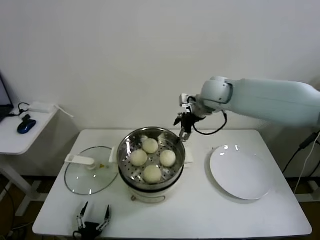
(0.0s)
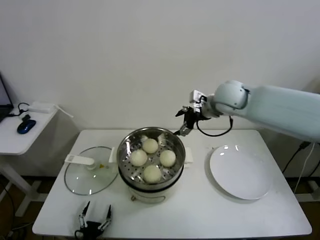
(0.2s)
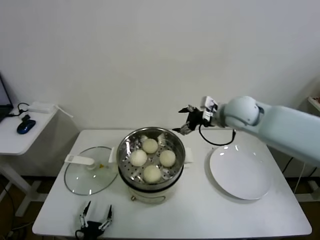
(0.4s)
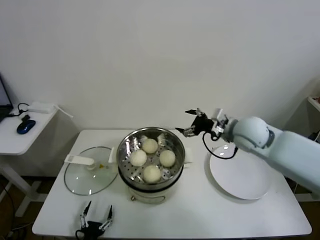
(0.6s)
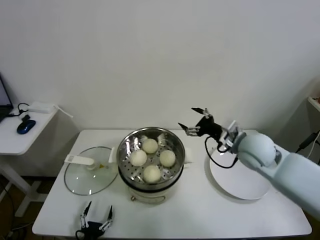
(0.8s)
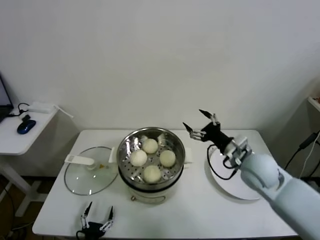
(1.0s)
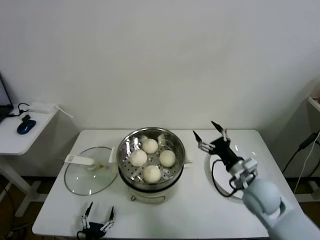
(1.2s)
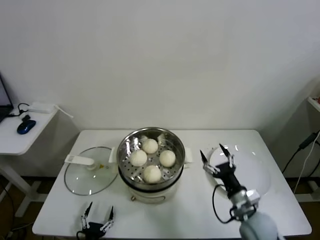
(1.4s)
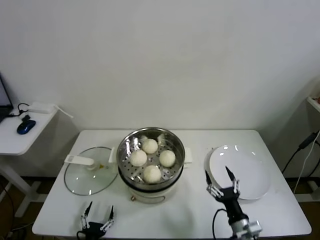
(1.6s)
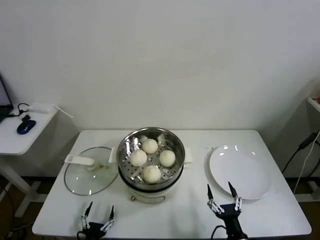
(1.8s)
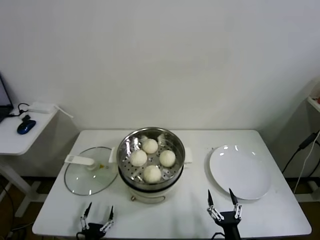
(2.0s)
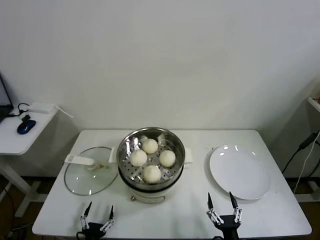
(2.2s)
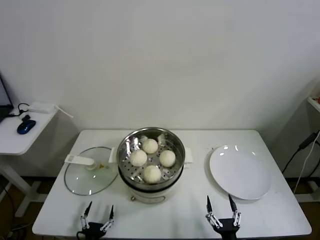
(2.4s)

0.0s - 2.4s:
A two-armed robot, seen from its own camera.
Task of the whole recording: take steamed baozi put them in steamer.
0.0s - 1.2s: The right gripper goes roughly 30 cm backward, downward and to the right.
1.2s - 2.4s: The right gripper shifts approximately 30 cm backward and downward.

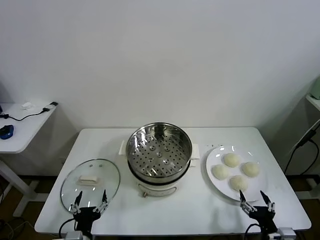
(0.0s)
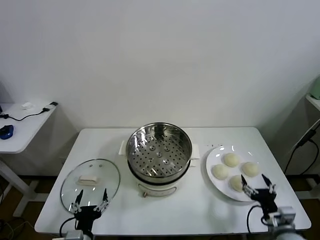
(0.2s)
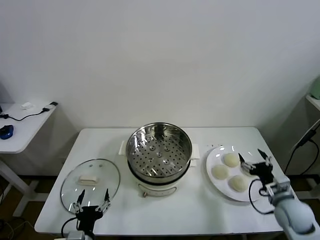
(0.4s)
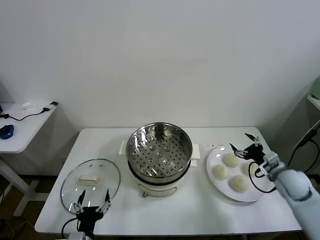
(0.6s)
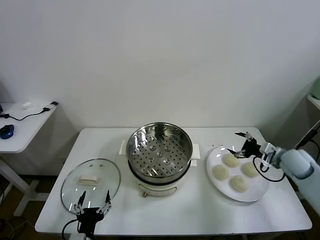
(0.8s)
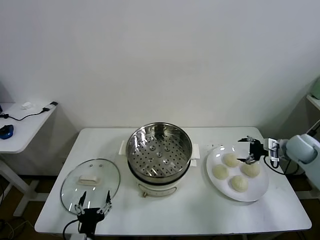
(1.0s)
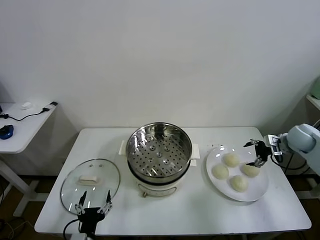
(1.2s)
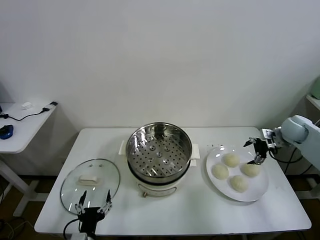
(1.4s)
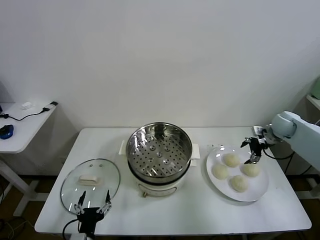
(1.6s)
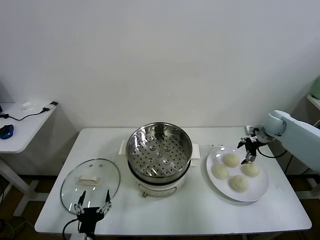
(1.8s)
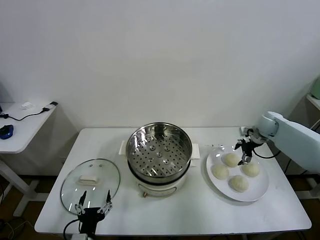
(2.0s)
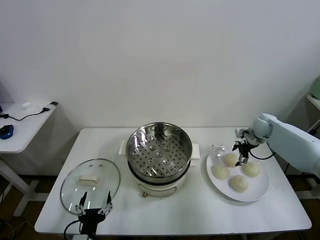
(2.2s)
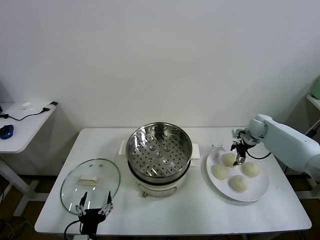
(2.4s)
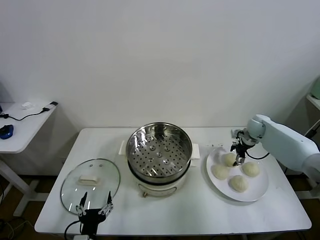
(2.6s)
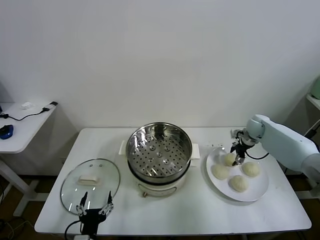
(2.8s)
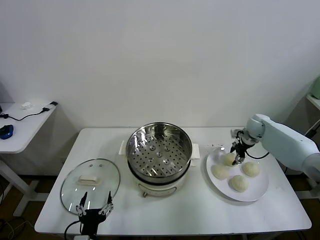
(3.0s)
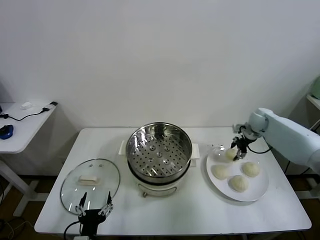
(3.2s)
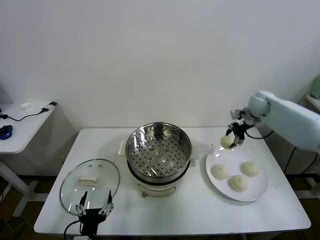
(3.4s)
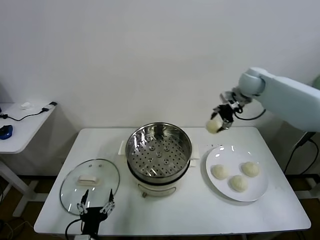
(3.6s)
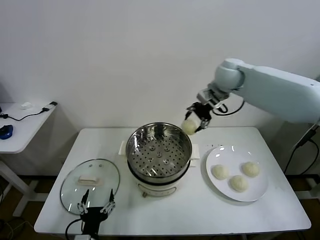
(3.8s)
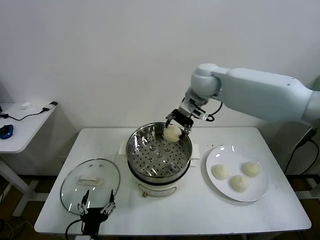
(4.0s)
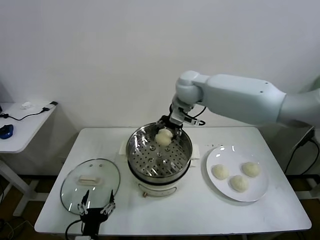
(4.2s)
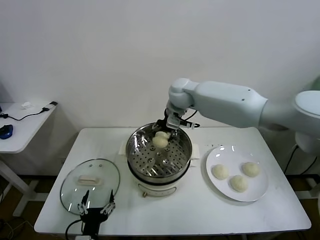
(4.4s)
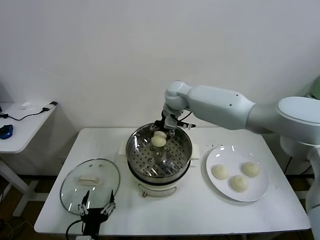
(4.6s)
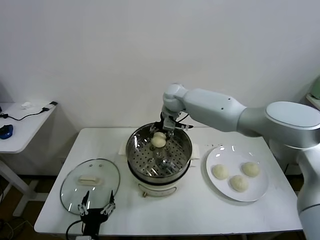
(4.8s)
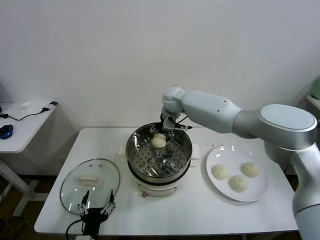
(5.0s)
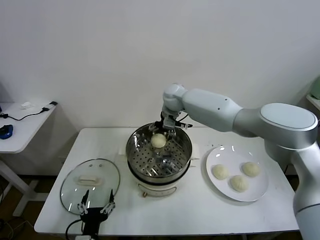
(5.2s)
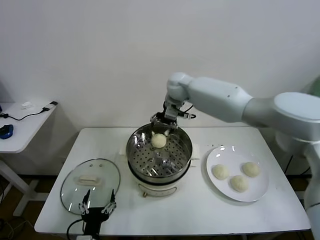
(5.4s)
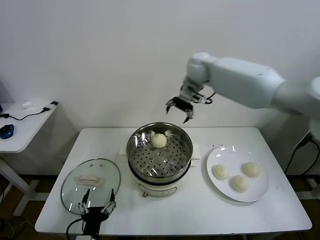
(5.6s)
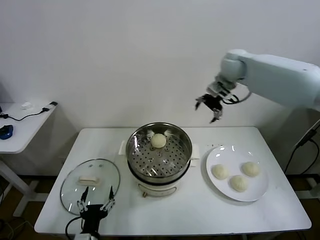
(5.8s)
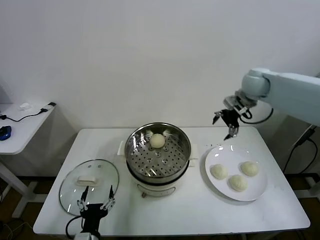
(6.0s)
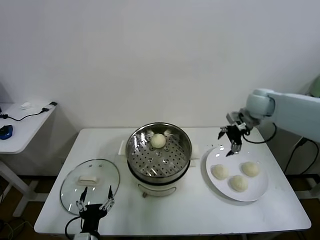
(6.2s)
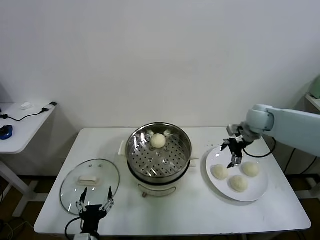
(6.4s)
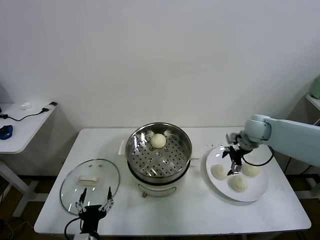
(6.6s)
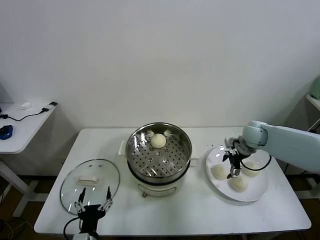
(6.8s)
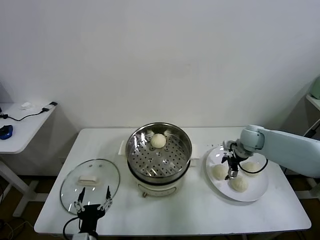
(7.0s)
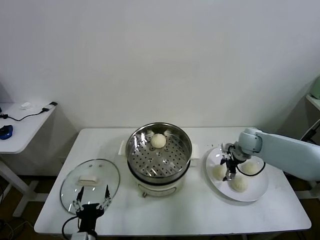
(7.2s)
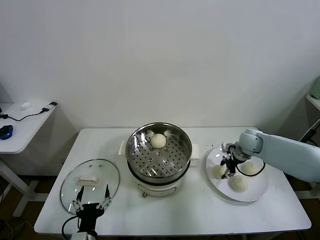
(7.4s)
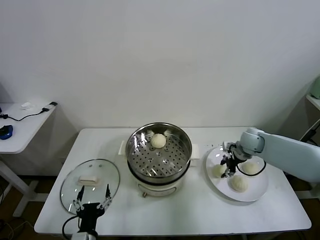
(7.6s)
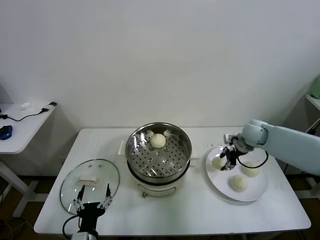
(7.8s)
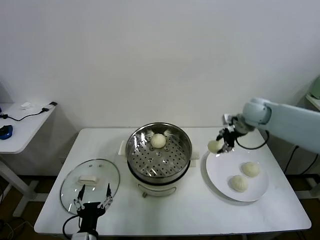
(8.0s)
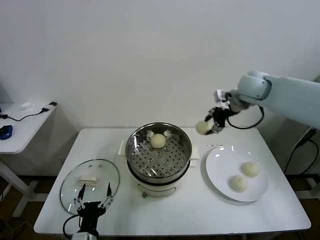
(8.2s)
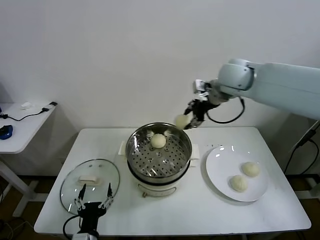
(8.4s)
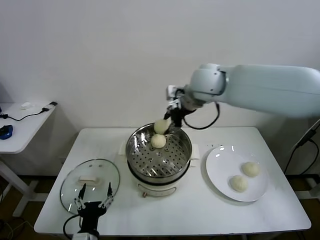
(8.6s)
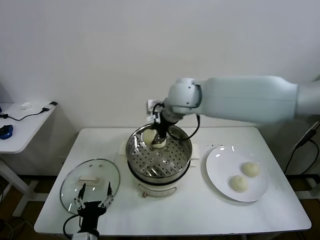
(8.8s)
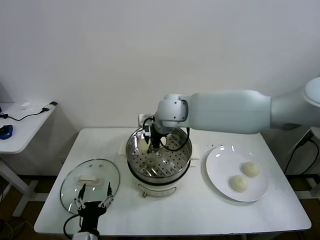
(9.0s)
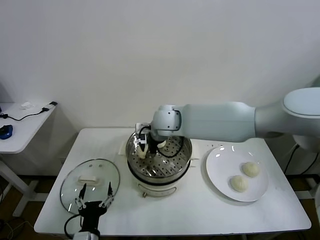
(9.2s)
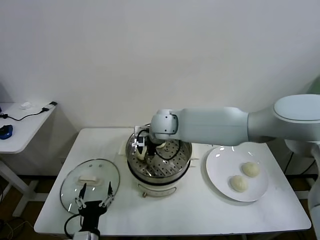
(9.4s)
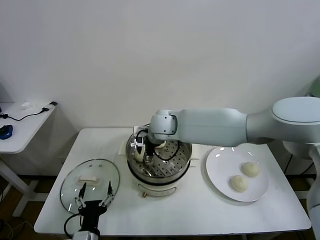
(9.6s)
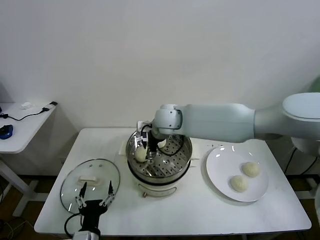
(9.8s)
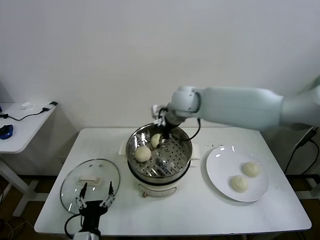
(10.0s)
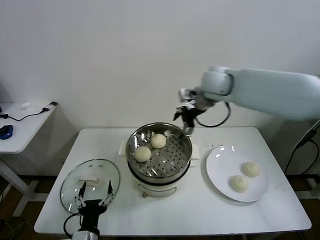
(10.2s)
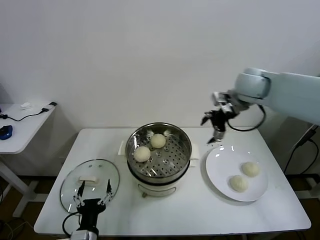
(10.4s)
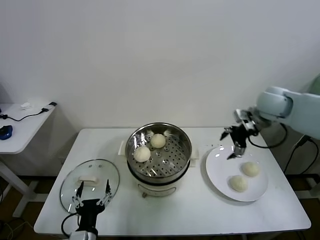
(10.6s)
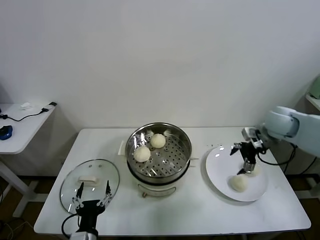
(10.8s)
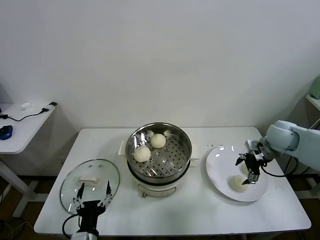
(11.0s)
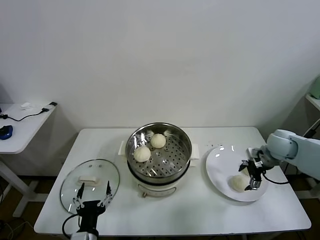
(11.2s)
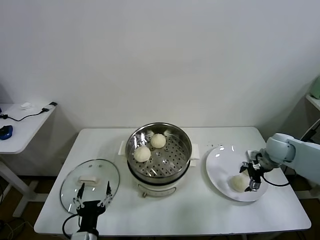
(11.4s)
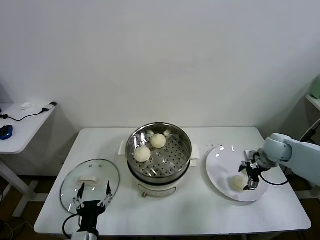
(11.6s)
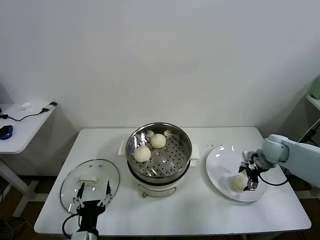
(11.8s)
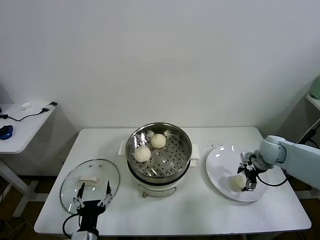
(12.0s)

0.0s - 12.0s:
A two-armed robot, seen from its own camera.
Task of the whole recording: take steamed baozi put them in steamer.
Step, 0.0s - 2.8s: Grasp the baozi in the plate with right gripper.
Step, 3.0s - 5.2s: Place the baozi on the steamer with right gripper.
Step, 5.4s - 7.4s: Grasp the baozi in the plate with right gripper.
Step, 7.6s - 9.6s: Place the baozi on the steamer with right gripper.
1.6s - 3.0s: The right gripper moves to the left, downward and forward, approximately 10 cm, and closes its fingers.
3.0s - 4.4s: The right gripper is displaced to the left and upward by about 40 cm.
4.4s - 6.0s: The right gripper travels to the right by roughly 25 cm, and opens up.
6.0s - 7.6s: The right gripper goes roughly 20 cm downward, and closes up.
7.6s - 9.0s: The right gripper is displaced to the left and upward by some 35 cm.
9.0s - 10.4s: The right gripper moves to the right, roughly 25 cm, and opens its fingers.
10.4s - 12.0s: The right gripper heads downward and to the right, covering about 30 cm.

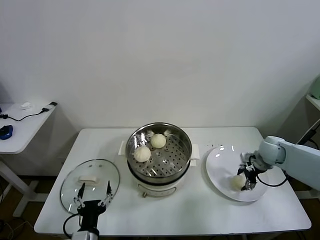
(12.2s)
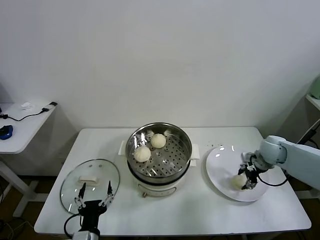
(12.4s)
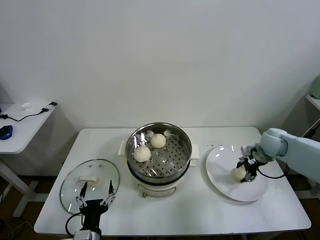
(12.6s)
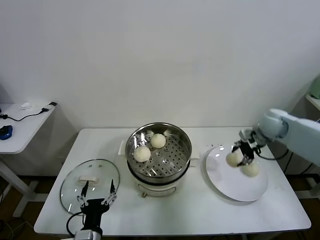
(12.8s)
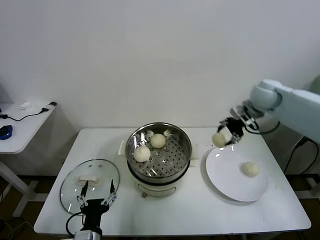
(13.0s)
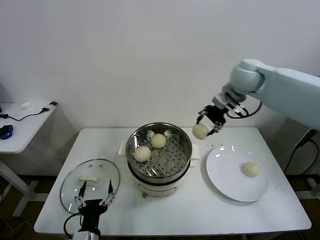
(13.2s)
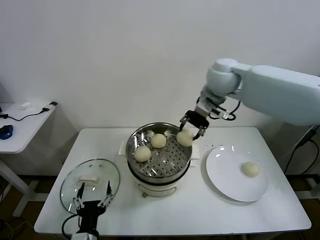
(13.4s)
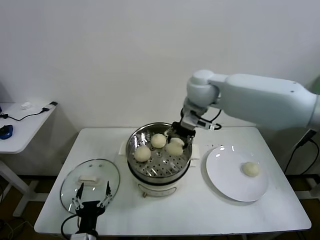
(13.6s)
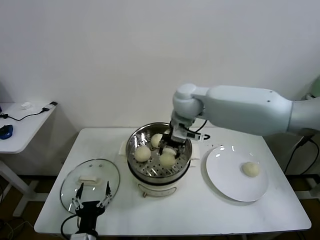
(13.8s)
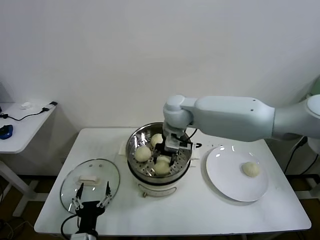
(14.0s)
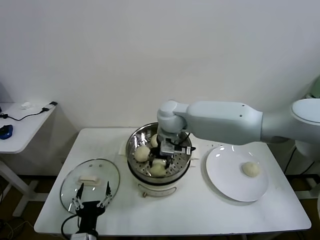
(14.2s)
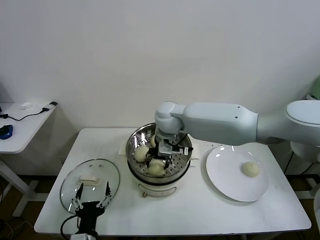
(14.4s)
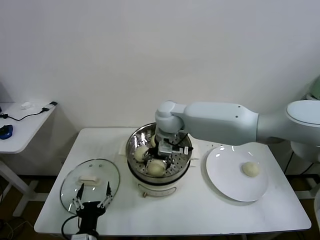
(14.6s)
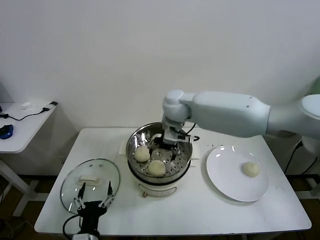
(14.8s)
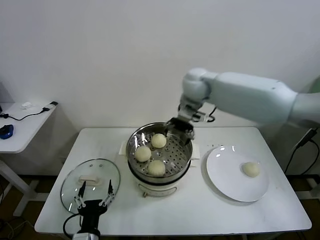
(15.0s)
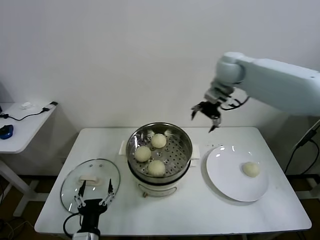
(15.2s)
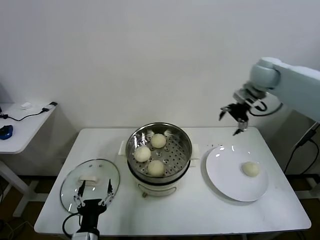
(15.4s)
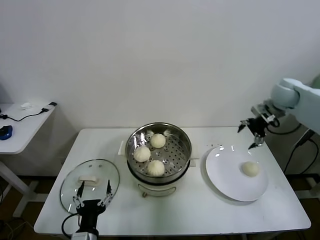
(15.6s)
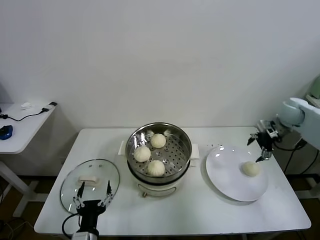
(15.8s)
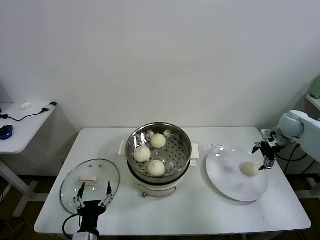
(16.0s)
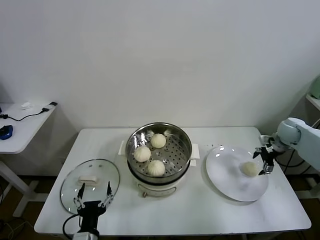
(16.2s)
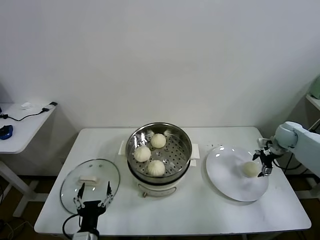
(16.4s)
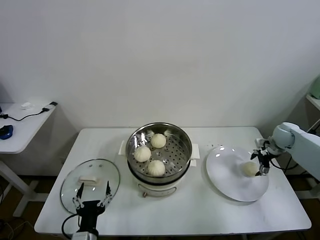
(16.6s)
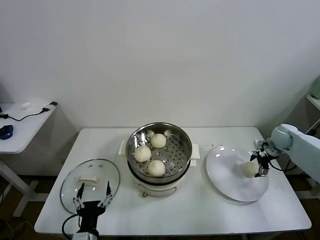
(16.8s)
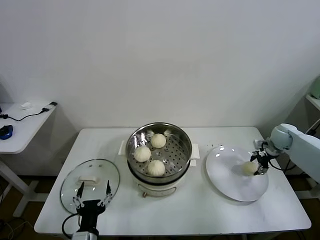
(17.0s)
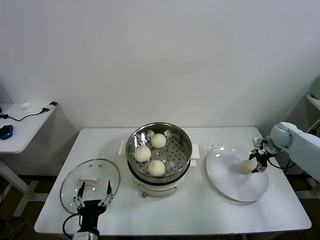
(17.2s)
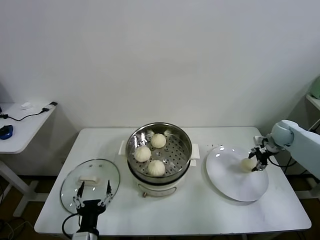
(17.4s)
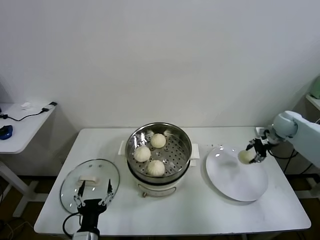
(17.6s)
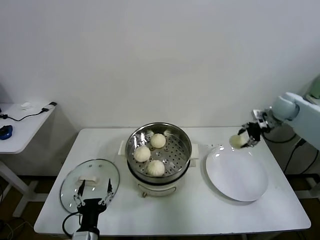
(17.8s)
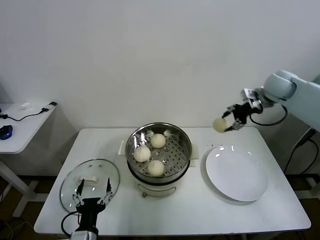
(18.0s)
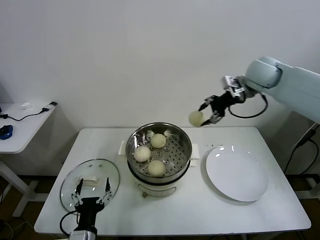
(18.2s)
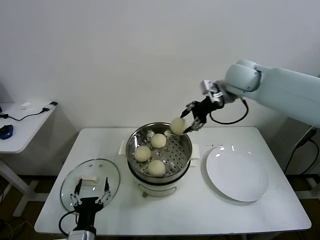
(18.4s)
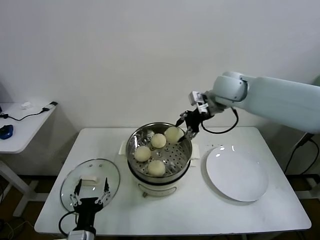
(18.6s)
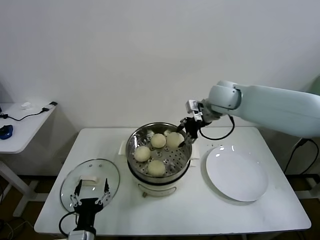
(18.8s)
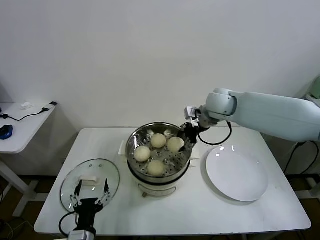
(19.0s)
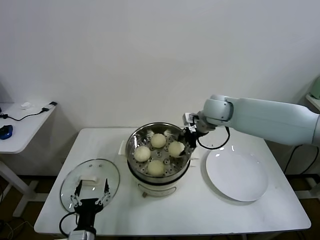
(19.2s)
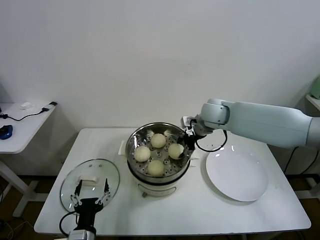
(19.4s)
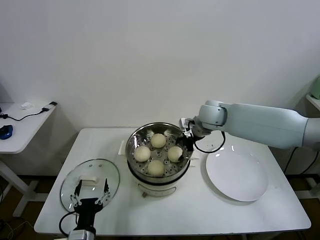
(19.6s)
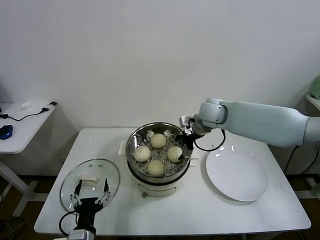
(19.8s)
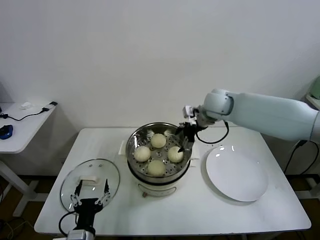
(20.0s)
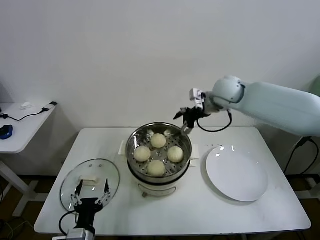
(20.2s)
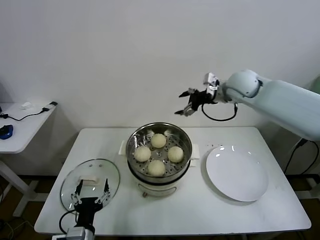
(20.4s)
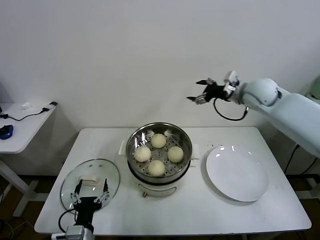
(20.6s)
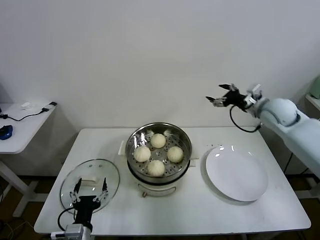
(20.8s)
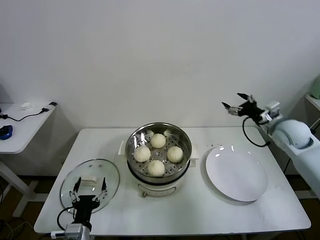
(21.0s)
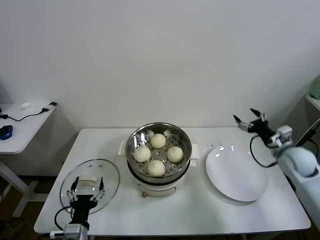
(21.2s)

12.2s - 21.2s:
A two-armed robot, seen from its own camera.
Task of the whole recording: take steamed baozi put them in steamer.
Step, 12.4s - 14.6s: Place the baozi on the steamer with right gripper.
Step, 14.8s - 16.8s: Grasp the baozi in the plate with right gripper.
Step, 17.2s - 19.8s: Place the baozi on the steamer with right gripper.
12.2s - 13.8s: The right gripper heads to the left and upward, covering some 40 cm, and closes its fingers.
13.8s - 15.2s: The right gripper goes some 15 cm to the right, forward and upward, and opens.
15.2s - 16.6s: The right gripper is displaced to the right and downward by approximately 35 cm.
16.6s - 18.2s: The right gripper travels upward and to the left by approximately 30 cm, and closes its fingers.
18.2s - 19.8s: The right gripper travels to the left and downward by about 20 cm, and opens.
19.8s - 21.2s: The right gripper goes approximately 30 cm to the right and backward.
